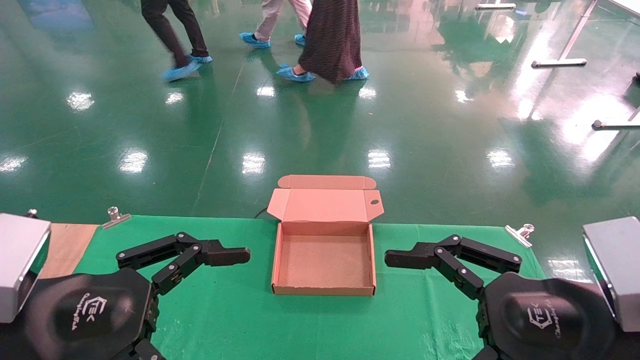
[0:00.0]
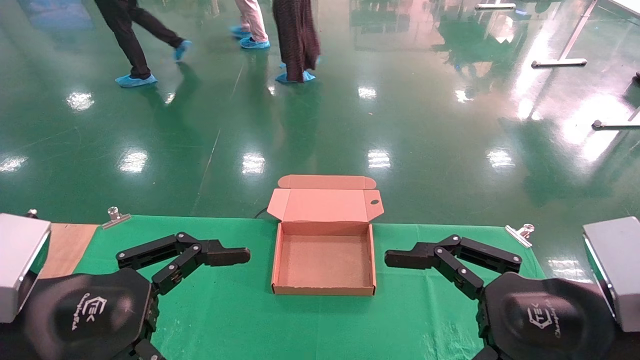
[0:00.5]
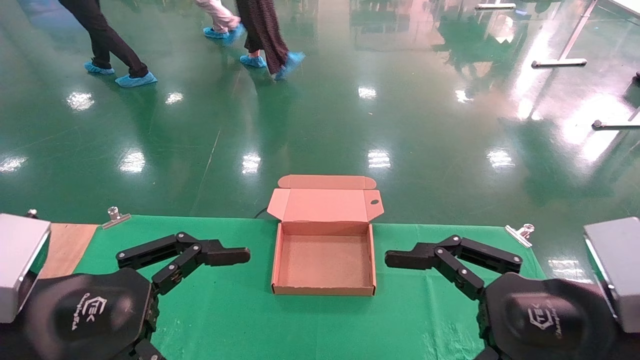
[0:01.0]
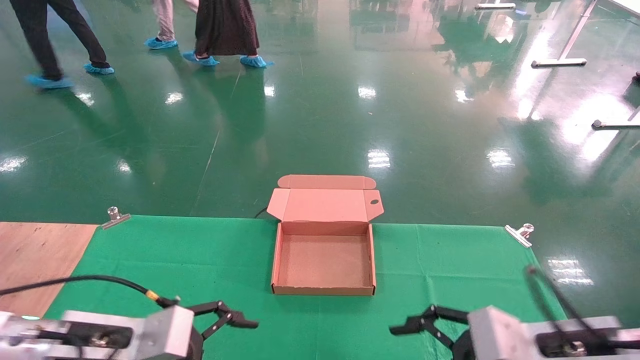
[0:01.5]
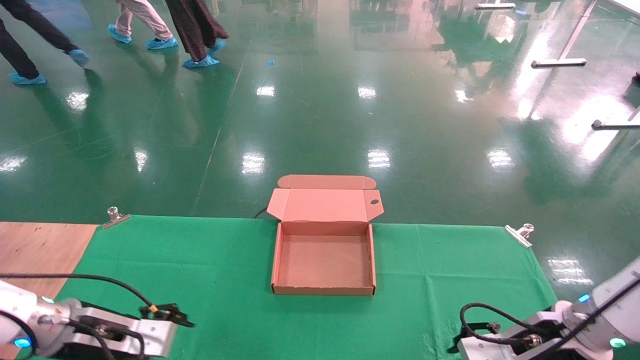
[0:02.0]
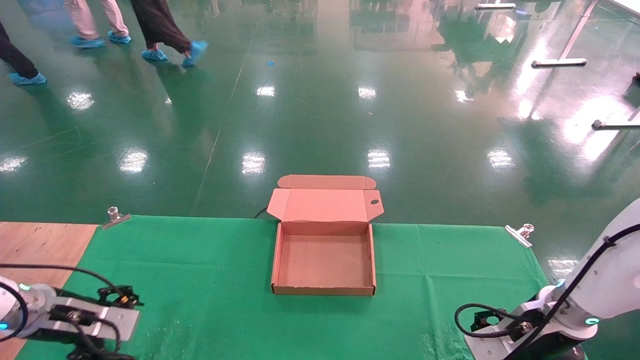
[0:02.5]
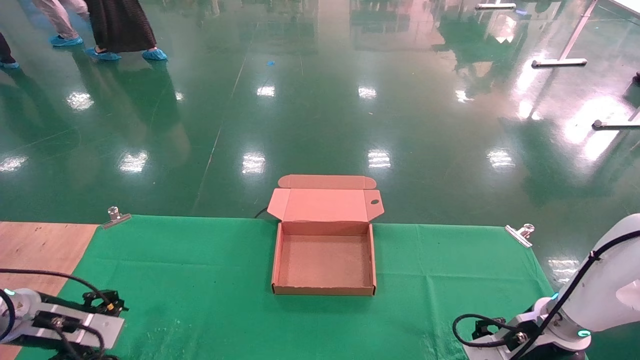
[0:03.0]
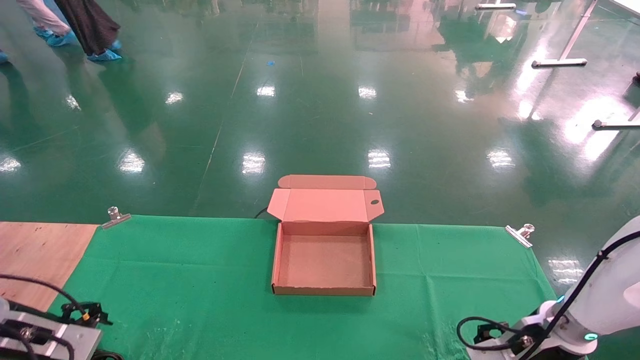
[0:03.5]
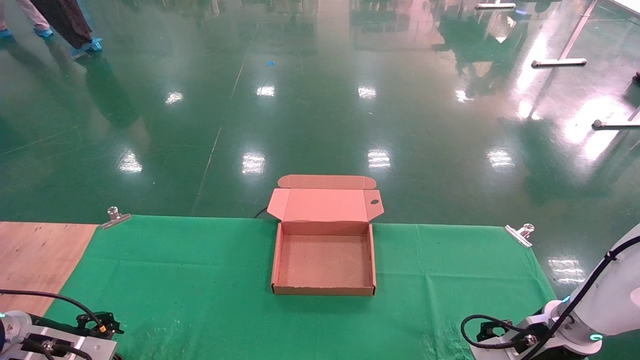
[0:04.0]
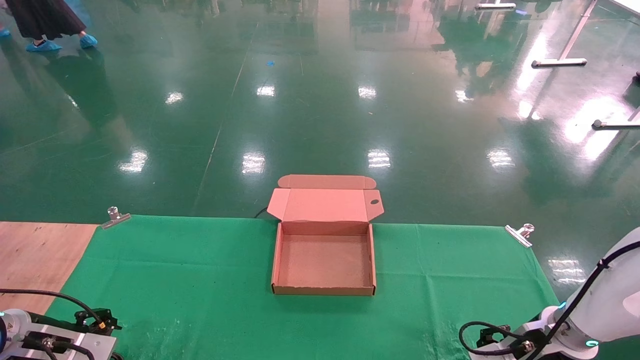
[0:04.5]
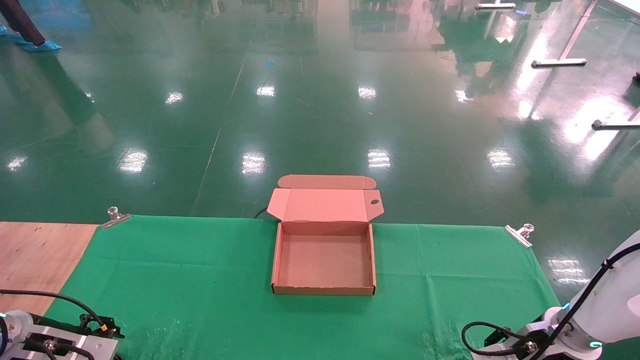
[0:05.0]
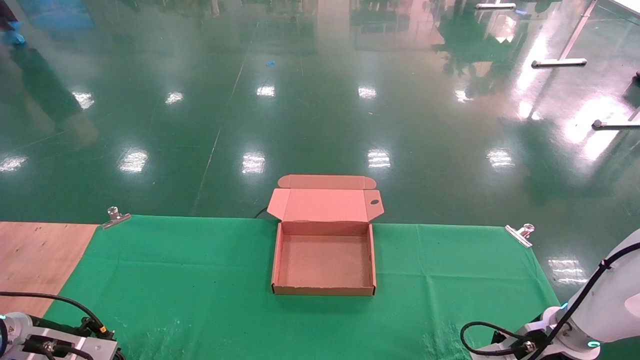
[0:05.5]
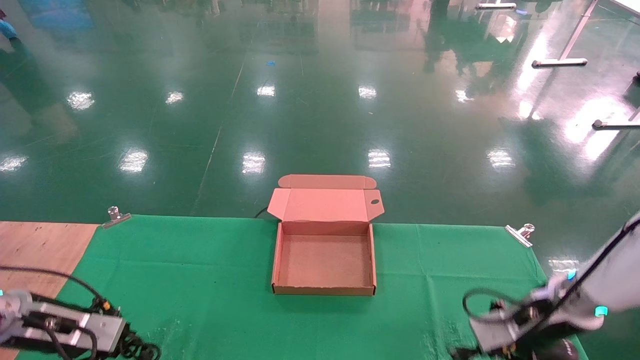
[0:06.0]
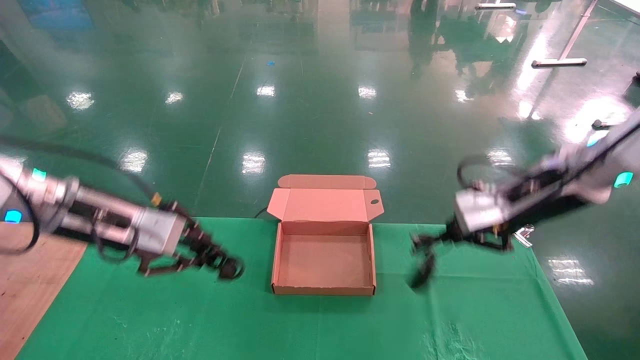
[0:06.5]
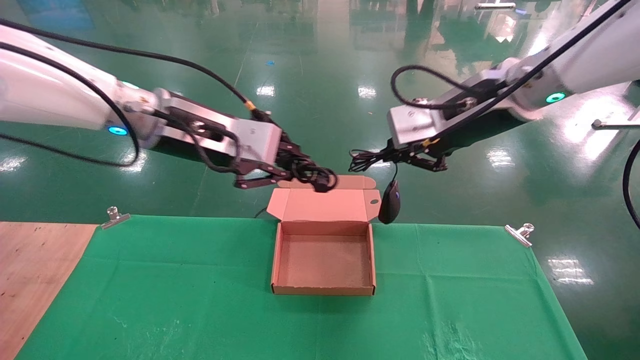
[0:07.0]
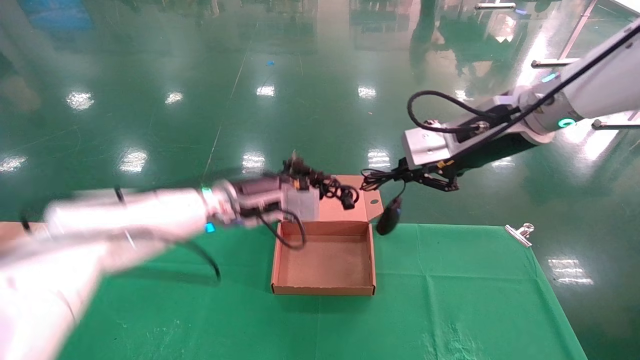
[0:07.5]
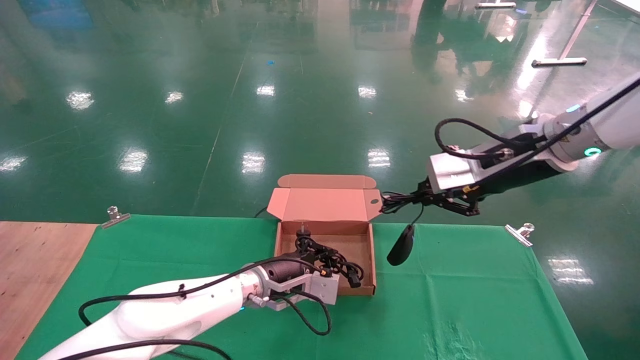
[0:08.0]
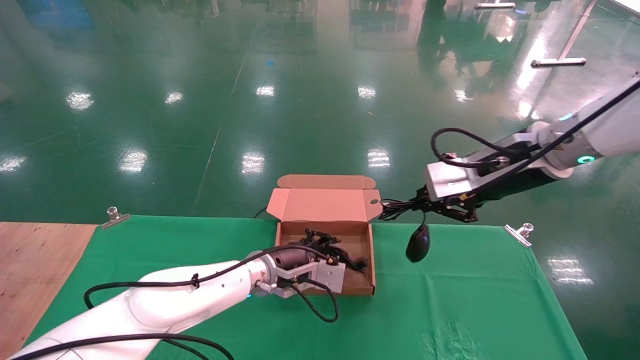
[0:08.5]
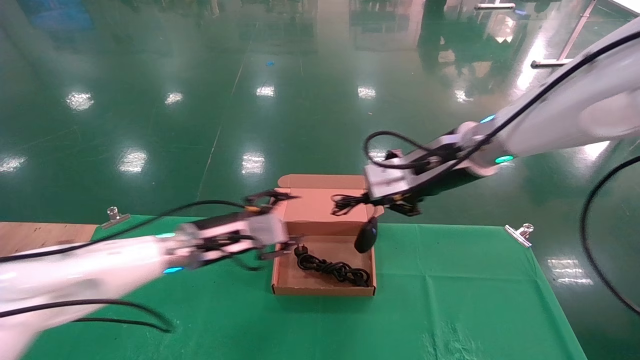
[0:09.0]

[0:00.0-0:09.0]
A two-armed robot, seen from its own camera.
Step, 0:02.0 to 0:06.5: Grab and lift both the mouse and power cord from the accessory packaging area at the same time.
0:00.0 to 0:02.0: The right gripper shifts approximately 20 cm forward and downward. The left gripper heads forward, downward and to the left, covering some 25 cm.
0:02.0 to 0:04.5: The left gripper shifts some 10 cm to the left, while the right gripper ends up about 5 cm from where it was.
0:04.5 to 0:07.0: The left gripper moves upward and to the right, approximately 40 cm, and closes. The right gripper is displaced upward by roughly 35 cm, and closes.
0:07.0 to 0:09.0: The right gripper goes approximately 5 cm downward, while the left gripper moves downward, roughly 20 cm, and opens up.

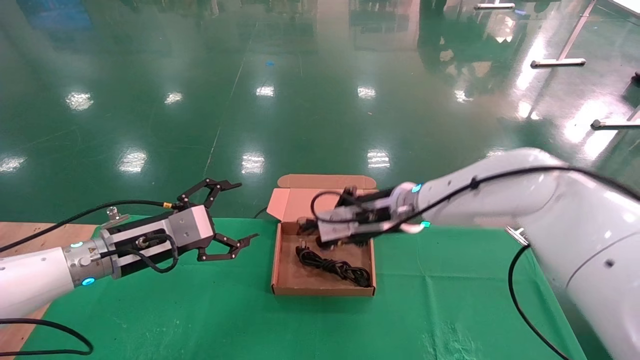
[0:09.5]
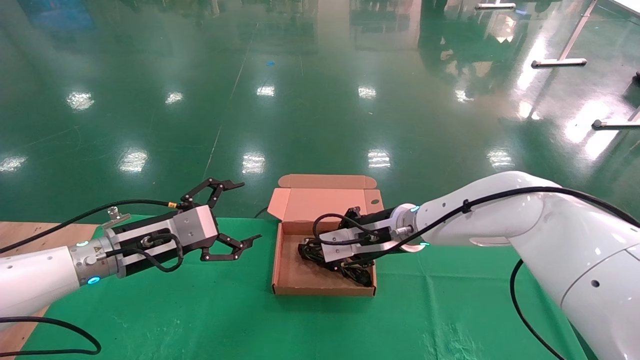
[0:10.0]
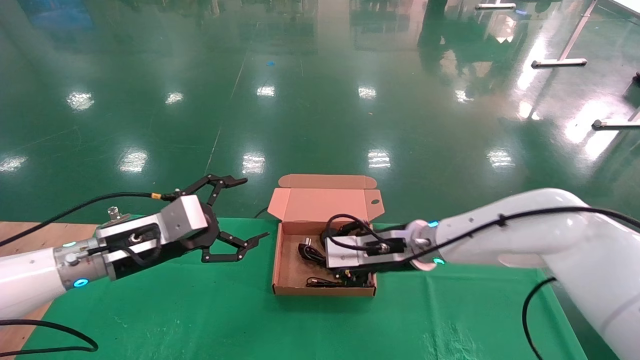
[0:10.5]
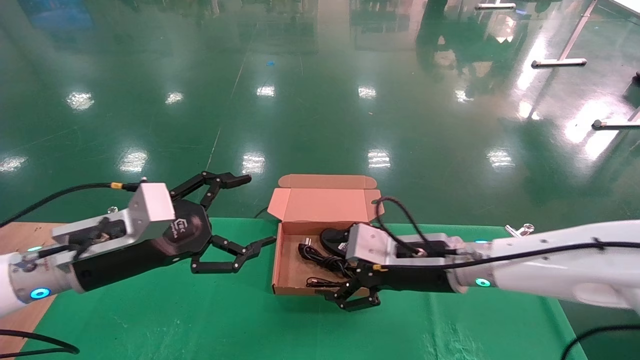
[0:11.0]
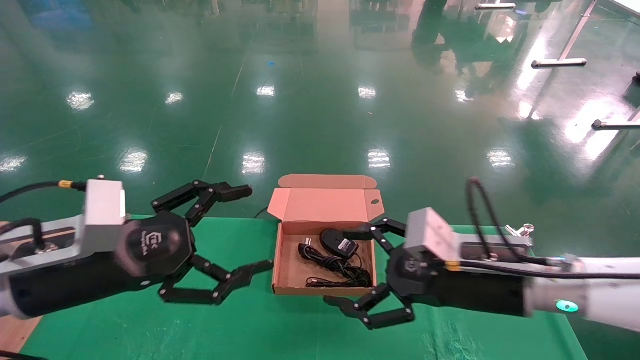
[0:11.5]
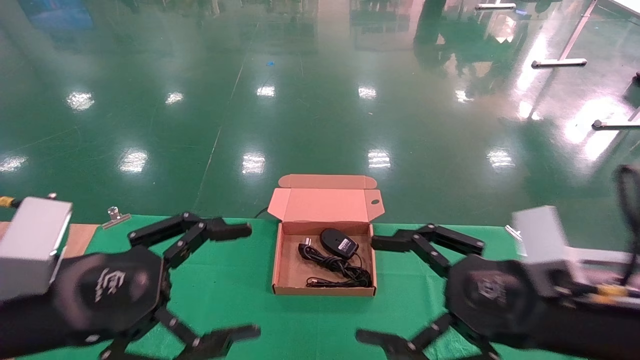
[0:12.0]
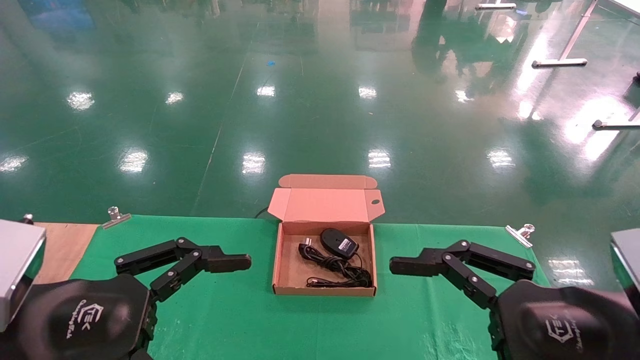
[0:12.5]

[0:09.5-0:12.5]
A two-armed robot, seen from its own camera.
Step, 0:09.5 to 0:11.5: Place the mouse and power cord into the box.
0:09.5 to 0:11.0: The right gripper goes approximately 10 cm backward and downward, and opens its fingers. The left gripper goes roughly 10 cm backward.
0:11.0 to 0:12.5: The left gripper moves backward, roughly 15 cm. The right gripper is displaced backward and to the right by about 25 cm.

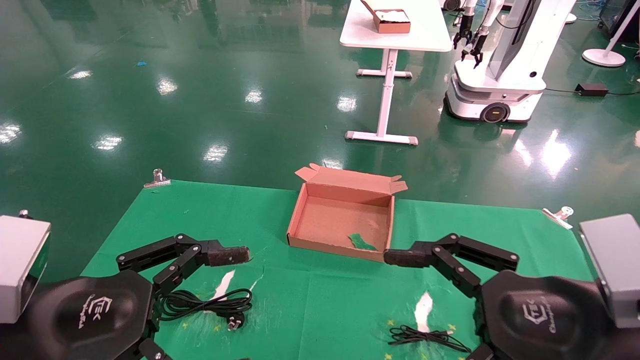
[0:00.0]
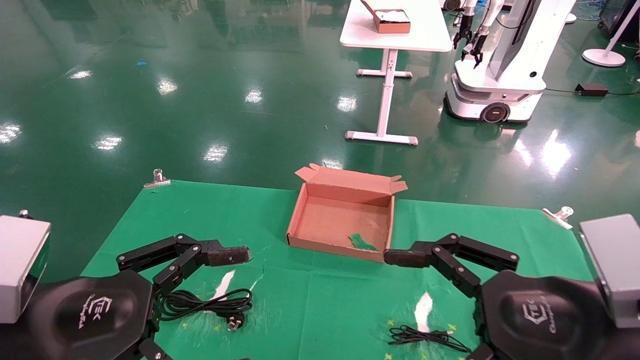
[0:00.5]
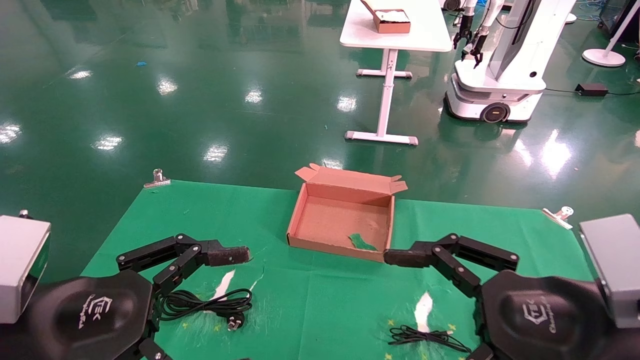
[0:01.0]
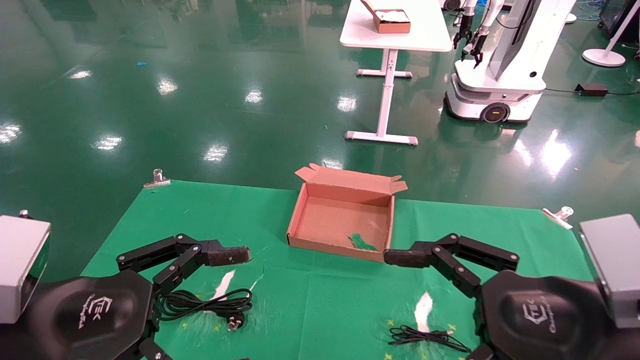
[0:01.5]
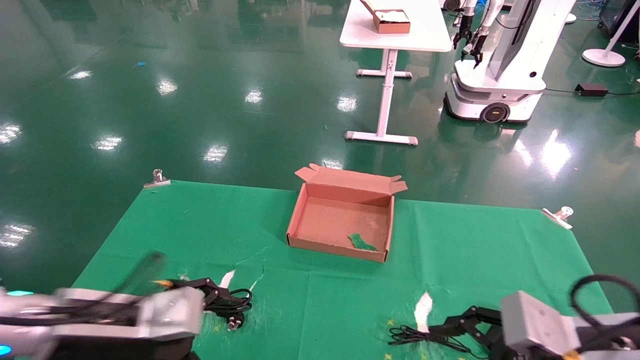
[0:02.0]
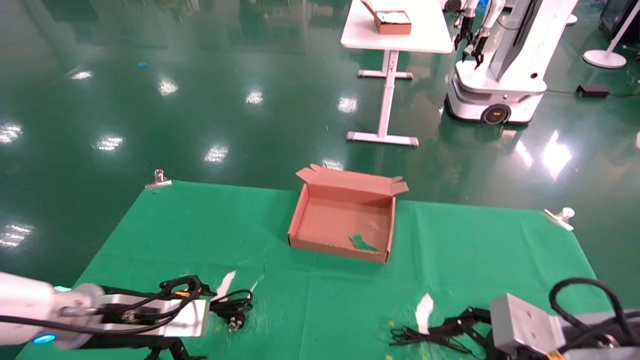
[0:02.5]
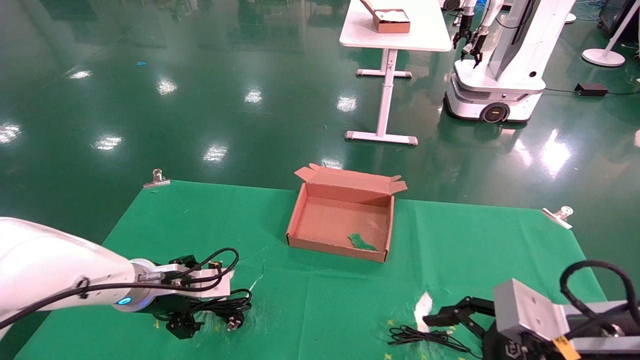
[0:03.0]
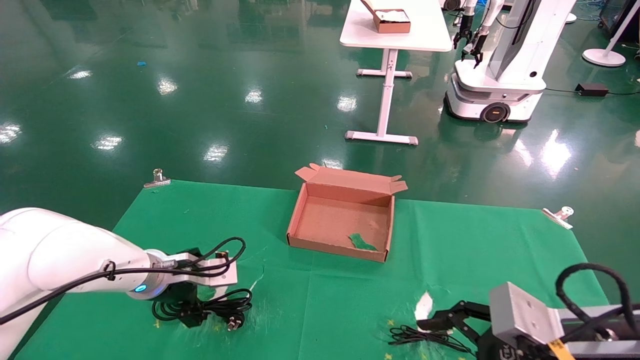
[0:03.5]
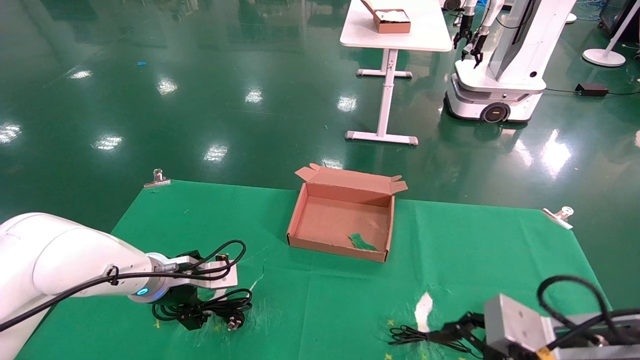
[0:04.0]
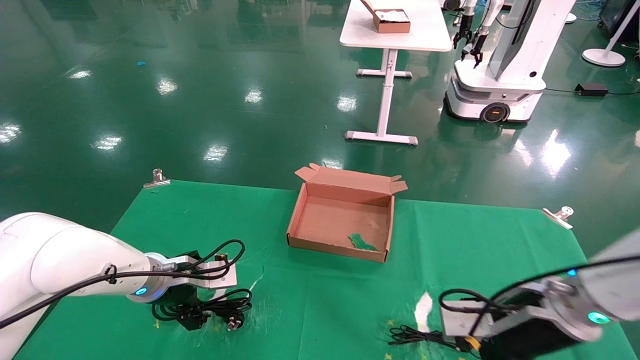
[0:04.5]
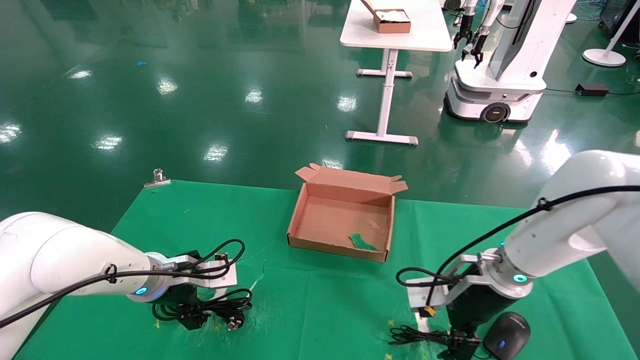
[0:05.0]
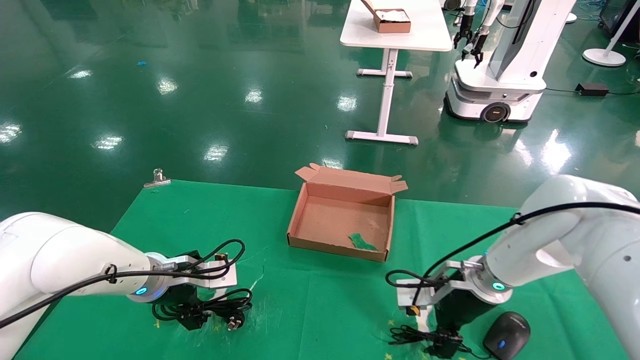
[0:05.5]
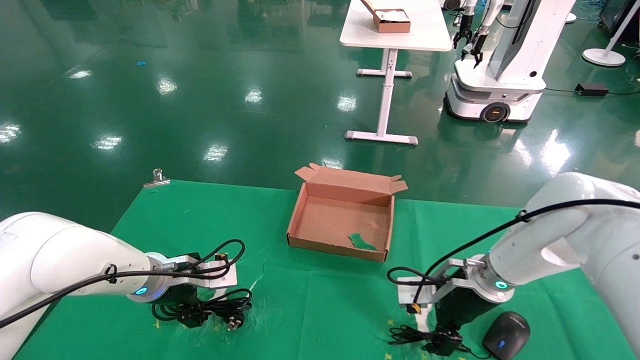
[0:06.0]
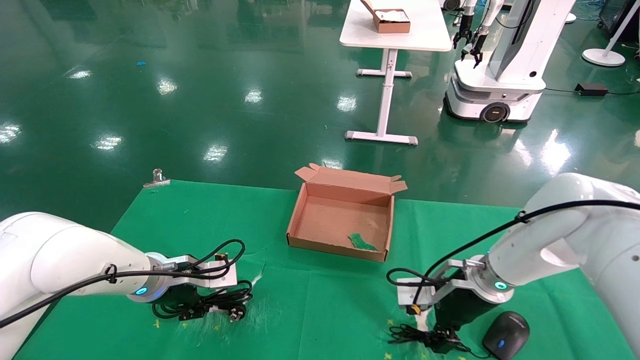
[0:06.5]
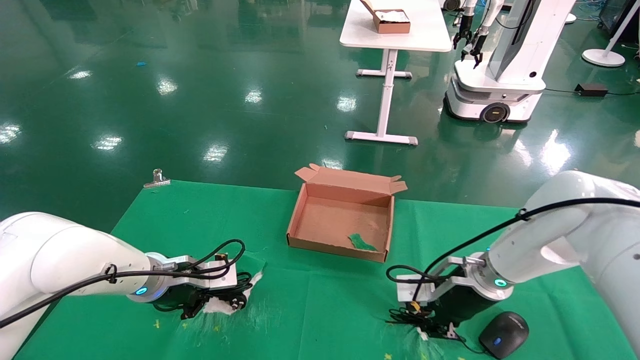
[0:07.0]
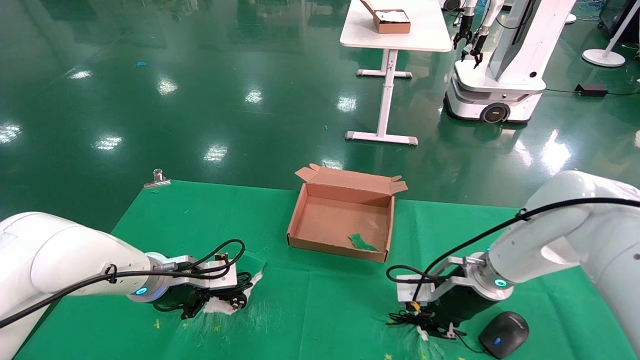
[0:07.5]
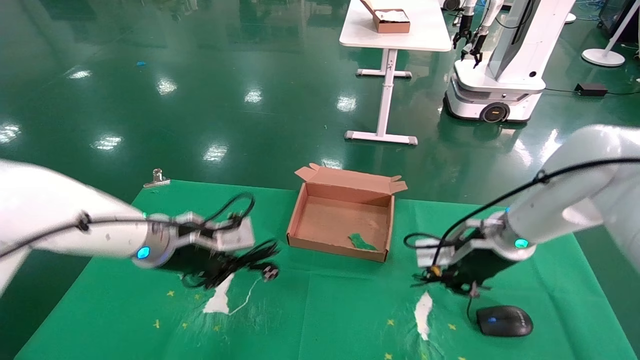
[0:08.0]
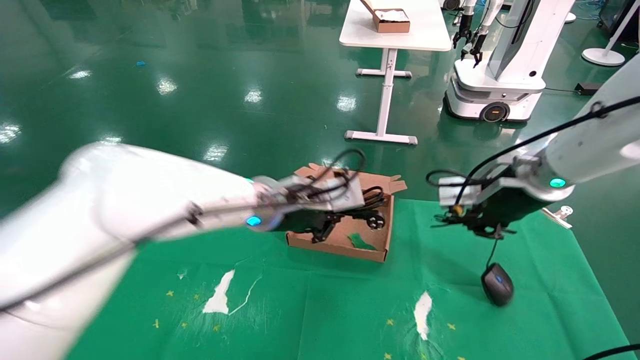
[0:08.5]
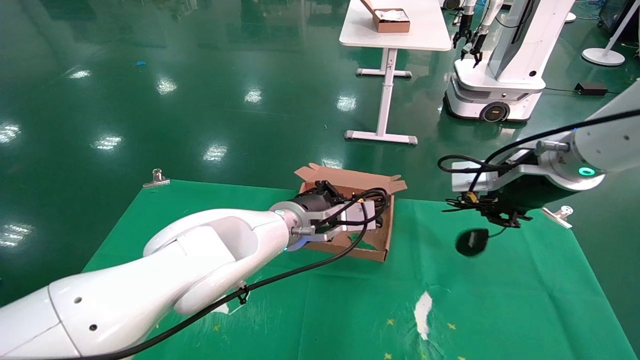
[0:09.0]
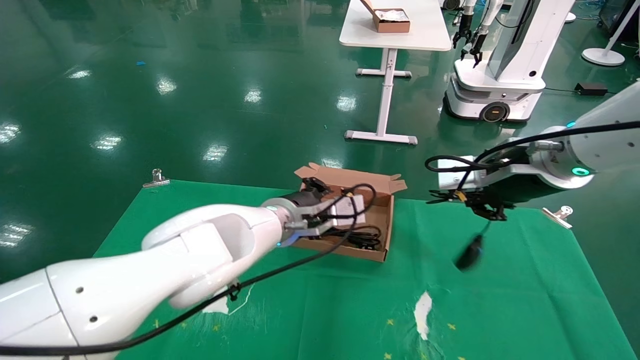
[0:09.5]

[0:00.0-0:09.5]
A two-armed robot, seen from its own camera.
Step, 0:02.0 to 0:08.0: Grab and lift both the mouse and power cord from the accessory packaging area at the same time.
0:00.0 to 0:02.0: The right gripper heads downward, covering roughly 5 cm; the left gripper heads forward and downward, covering some 10 cm.
0:02.0 to 0:04.0: The left gripper moves forward, about 15 cm.
0:04.0 to 0:05.5: The right gripper moves forward, roughly 20 cm.
0:05.5 to 0:07.5: The right gripper closes. The left gripper closes.
0:07.5 to 0:09.5: The left gripper is displaced to the right and upward by about 20 cm, while the right gripper is displaced upward by approximately 20 cm.
